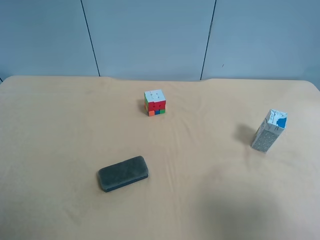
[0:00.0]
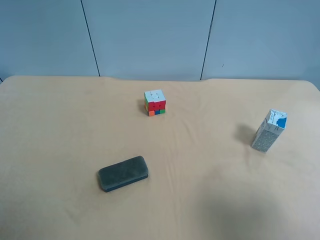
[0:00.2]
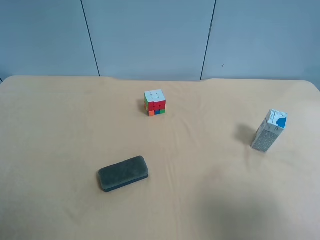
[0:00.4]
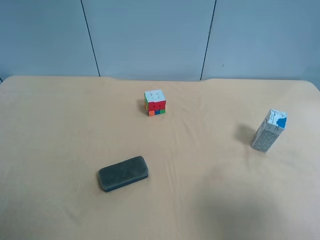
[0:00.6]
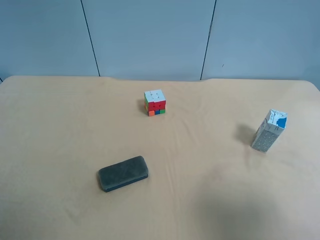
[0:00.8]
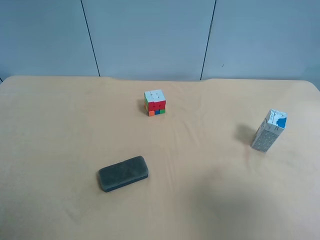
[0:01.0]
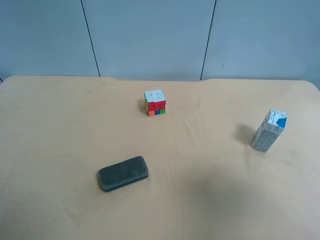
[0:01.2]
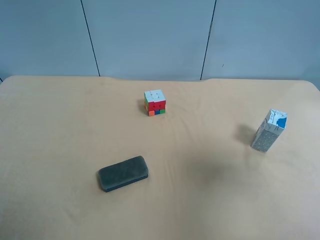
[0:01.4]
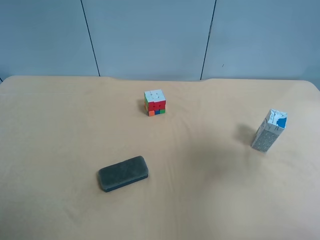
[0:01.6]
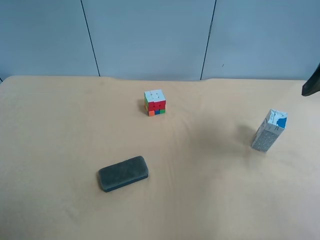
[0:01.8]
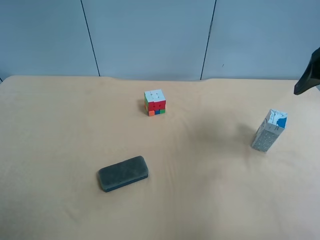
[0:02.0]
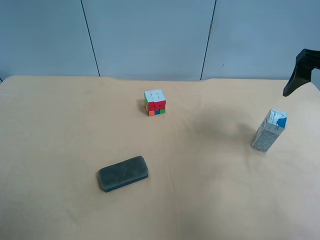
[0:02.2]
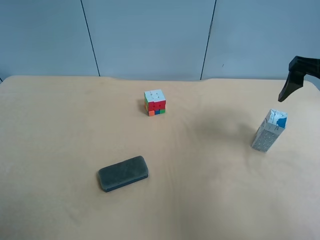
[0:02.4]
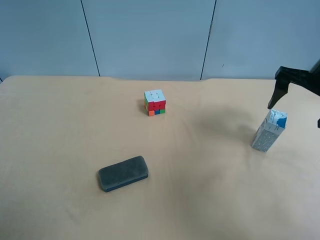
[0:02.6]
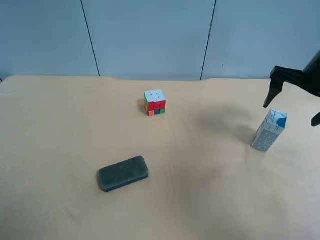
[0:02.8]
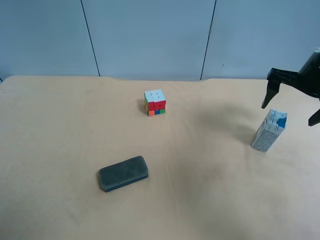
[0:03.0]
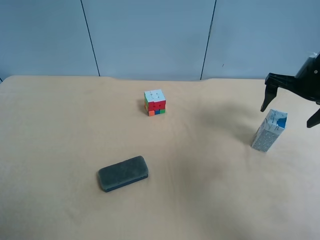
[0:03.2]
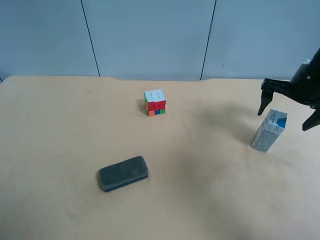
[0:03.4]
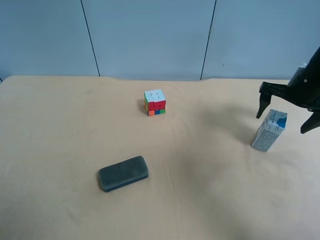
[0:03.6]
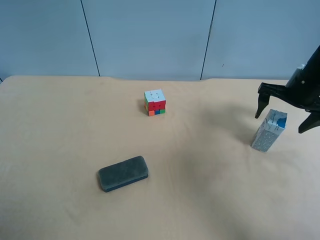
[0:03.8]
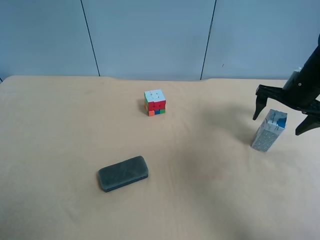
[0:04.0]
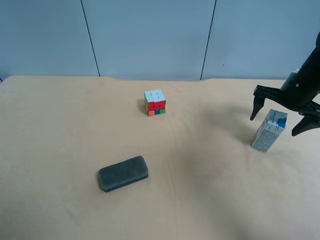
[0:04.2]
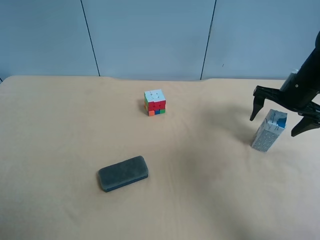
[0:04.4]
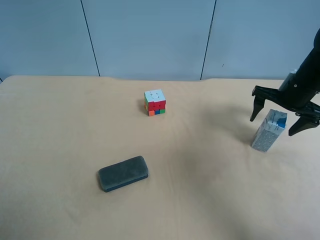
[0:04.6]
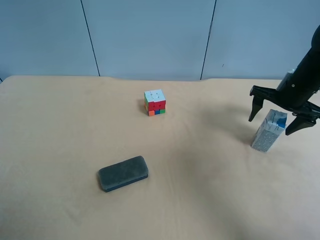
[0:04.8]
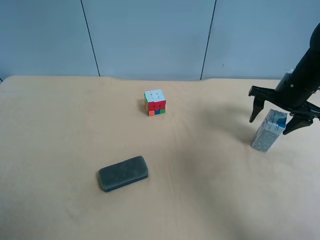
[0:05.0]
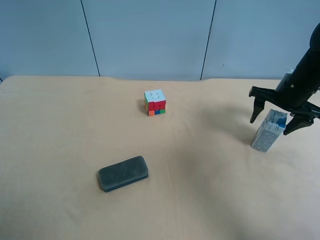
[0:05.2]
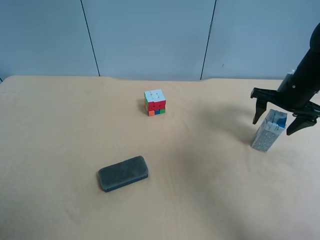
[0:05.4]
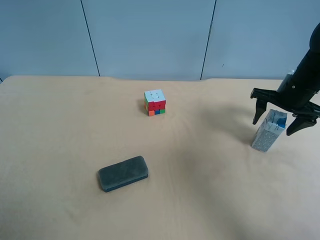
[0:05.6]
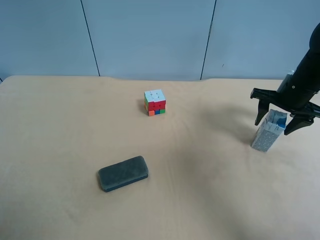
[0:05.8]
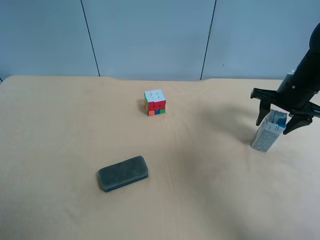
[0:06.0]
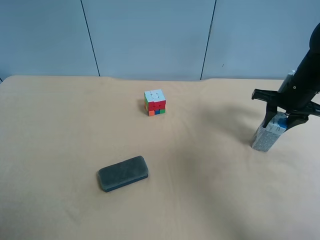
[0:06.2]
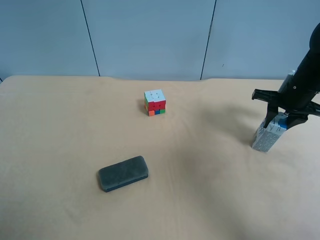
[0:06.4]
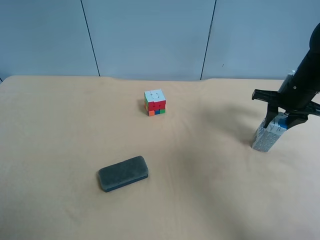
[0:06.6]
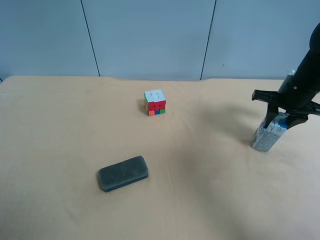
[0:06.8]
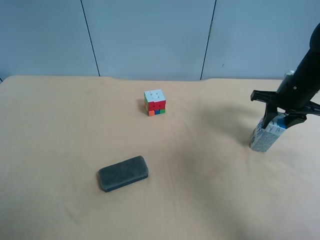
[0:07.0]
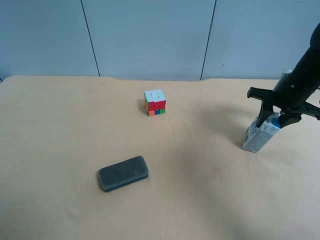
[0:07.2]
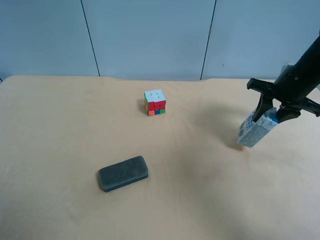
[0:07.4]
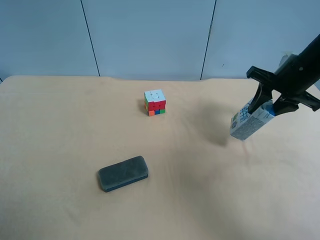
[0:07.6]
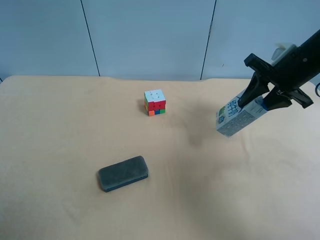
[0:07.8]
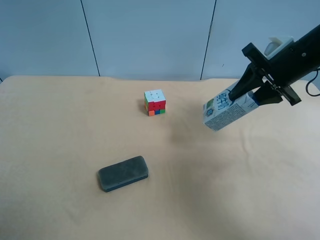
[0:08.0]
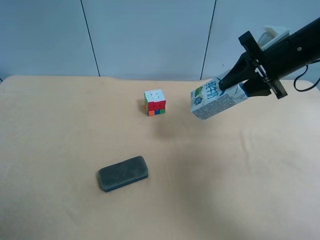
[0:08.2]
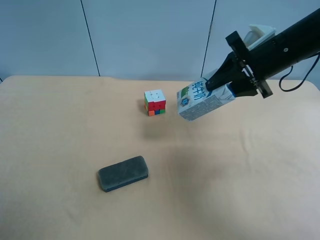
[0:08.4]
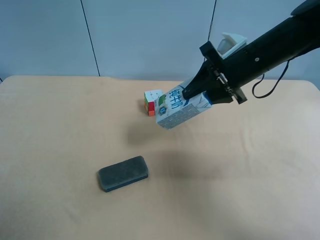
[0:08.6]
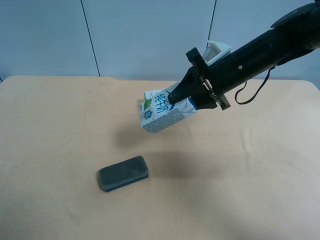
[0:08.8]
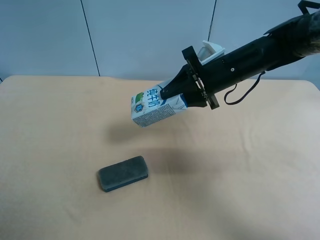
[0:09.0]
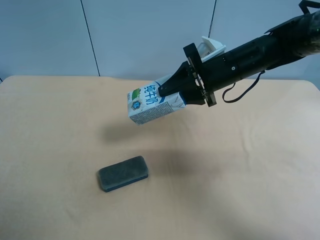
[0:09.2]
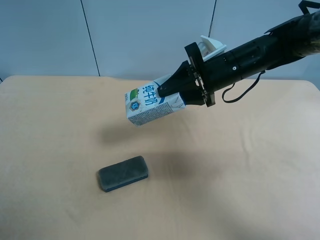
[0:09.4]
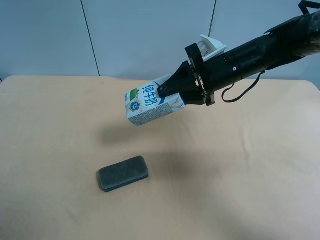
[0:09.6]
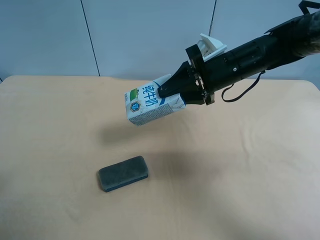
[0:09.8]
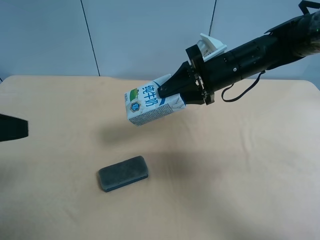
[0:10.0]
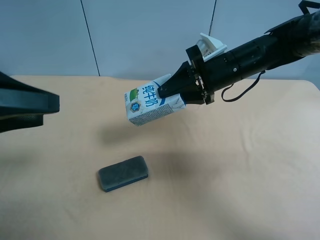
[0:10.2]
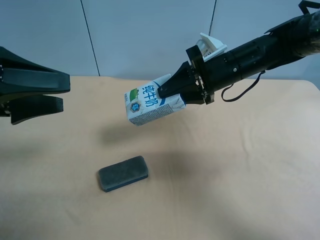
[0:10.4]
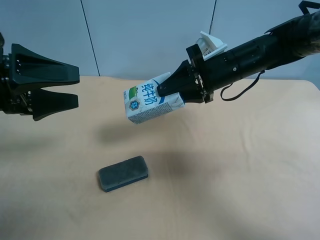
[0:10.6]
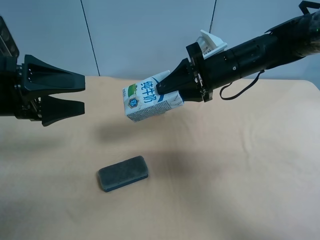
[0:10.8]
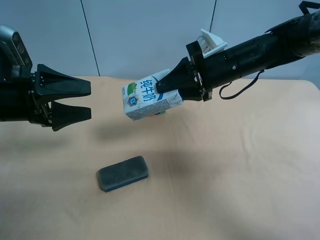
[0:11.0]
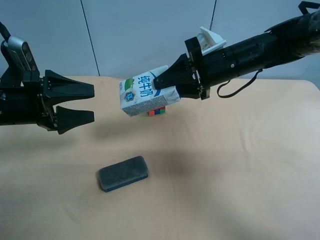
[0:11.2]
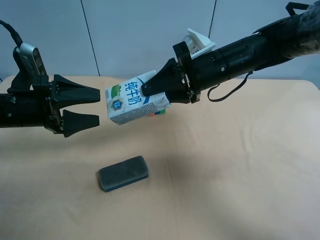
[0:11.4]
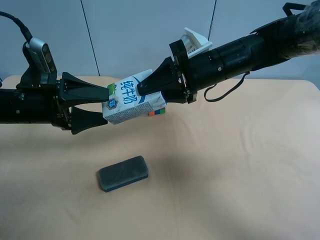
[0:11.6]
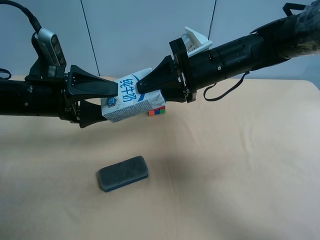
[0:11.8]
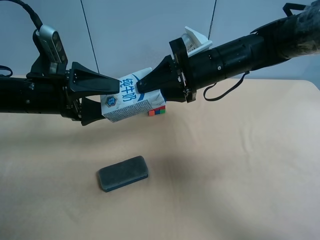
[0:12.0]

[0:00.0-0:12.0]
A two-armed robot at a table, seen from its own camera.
Task of the whole recording: use the right gripper to pick up the item and transfer it from the right gripper to the left gripper.
0:00.0 to 0:01.6: The right gripper travels forward and upward by approximately 15 cm.
0:01.6 to 0:03.0: The right gripper travels forward and downward by about 20 cm.
0:03.0 to 0:04.4: The right gripper moves downward, approximately 5 cm.
0:04.4 to 0:06.0: The right gripper closes up.
0:06.0 to 0:07.6: The right gripper goes roughly 5 cm upward, and closes.
0:07.6 to 0:09.0: The right gripper is displaced to the left by approximately 15 cm.
0:09.0 to 0:10.4: The left gripper goes some 20 cm forward.
0:10.4 to 0:12.0: The left gripper travels forward and downward by some 10 cm.

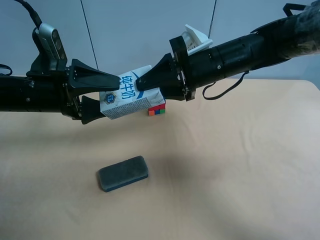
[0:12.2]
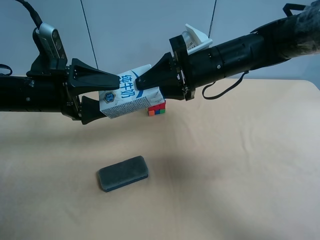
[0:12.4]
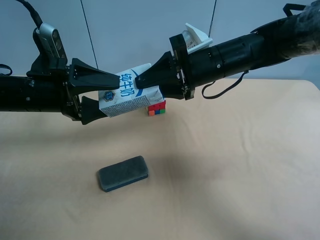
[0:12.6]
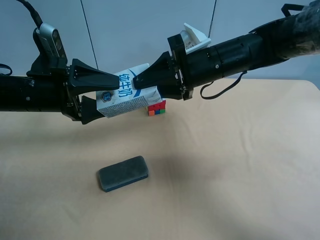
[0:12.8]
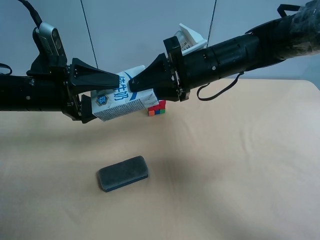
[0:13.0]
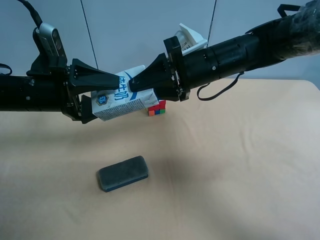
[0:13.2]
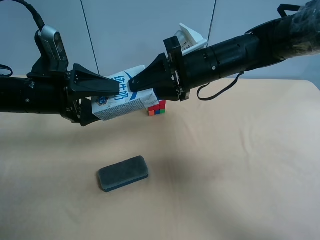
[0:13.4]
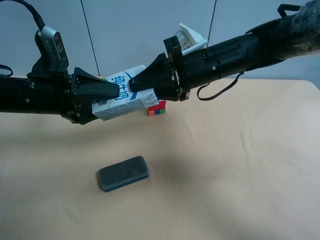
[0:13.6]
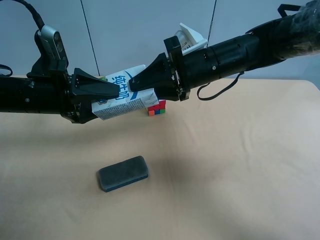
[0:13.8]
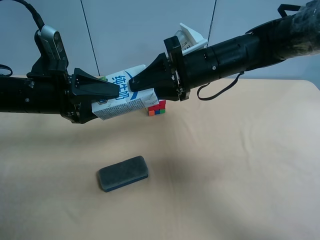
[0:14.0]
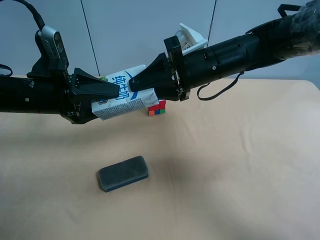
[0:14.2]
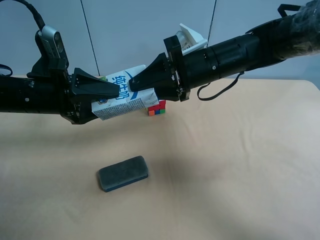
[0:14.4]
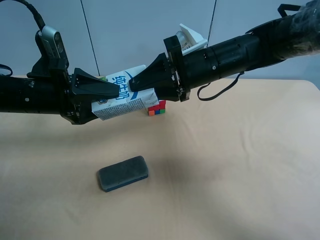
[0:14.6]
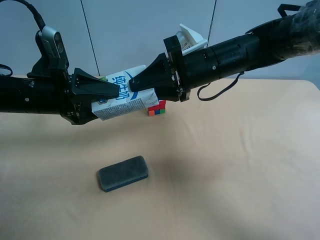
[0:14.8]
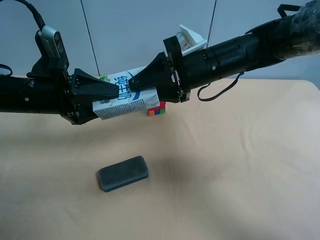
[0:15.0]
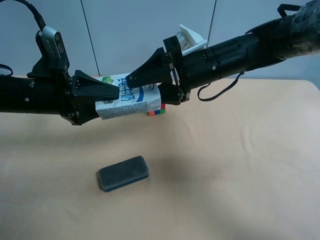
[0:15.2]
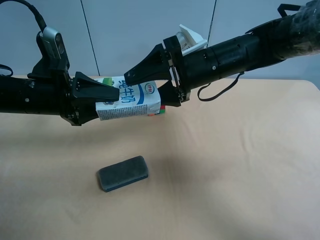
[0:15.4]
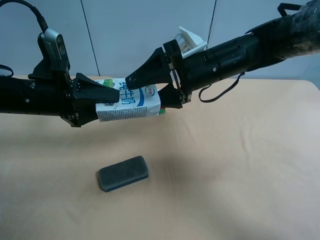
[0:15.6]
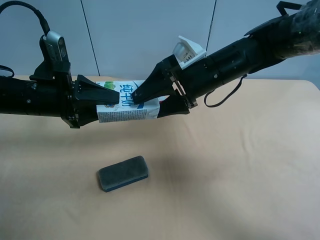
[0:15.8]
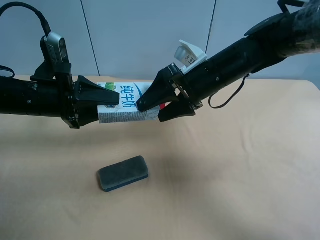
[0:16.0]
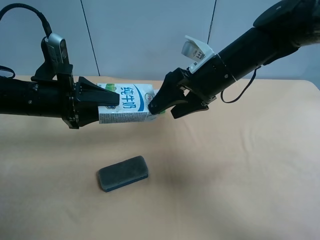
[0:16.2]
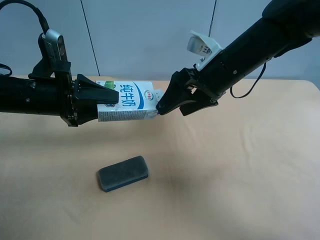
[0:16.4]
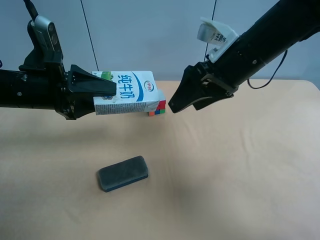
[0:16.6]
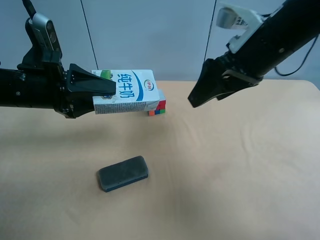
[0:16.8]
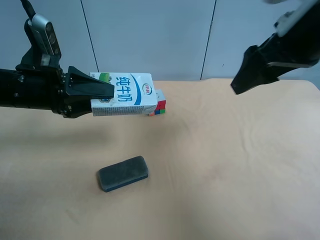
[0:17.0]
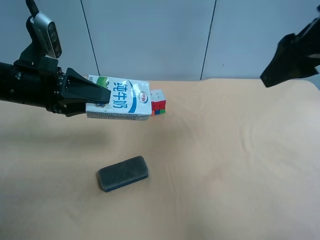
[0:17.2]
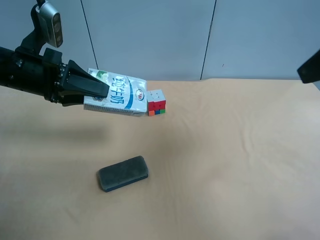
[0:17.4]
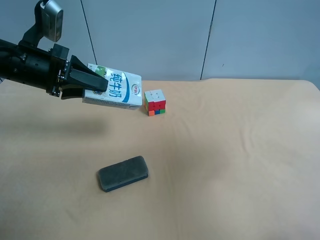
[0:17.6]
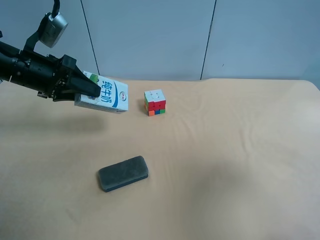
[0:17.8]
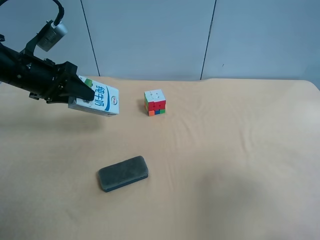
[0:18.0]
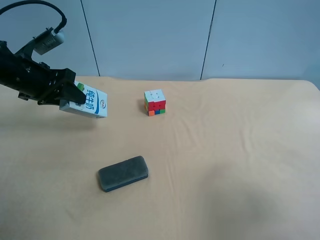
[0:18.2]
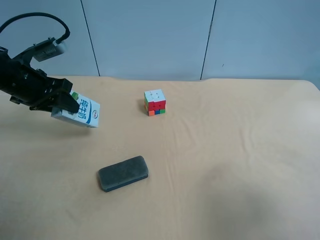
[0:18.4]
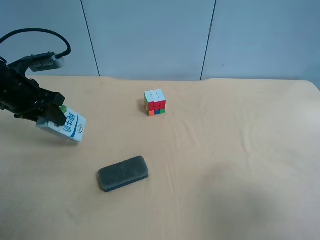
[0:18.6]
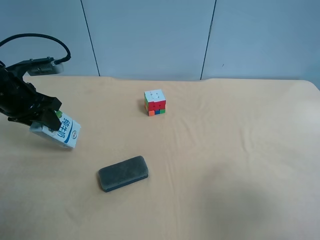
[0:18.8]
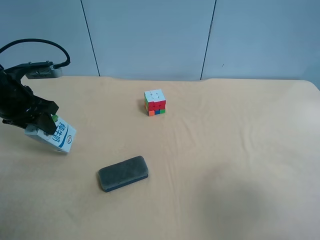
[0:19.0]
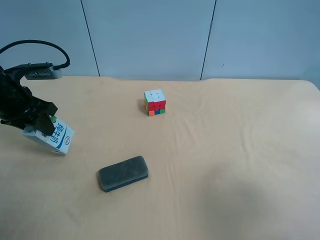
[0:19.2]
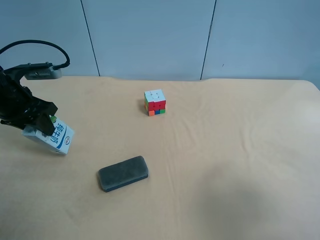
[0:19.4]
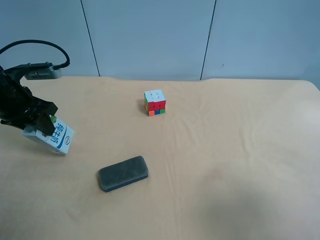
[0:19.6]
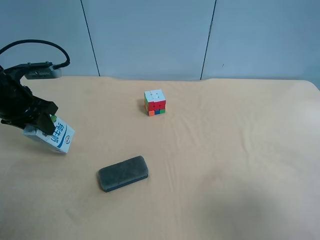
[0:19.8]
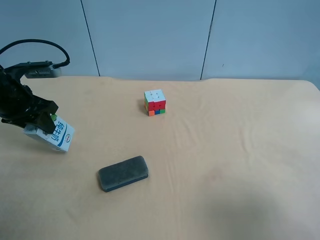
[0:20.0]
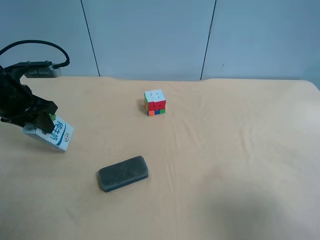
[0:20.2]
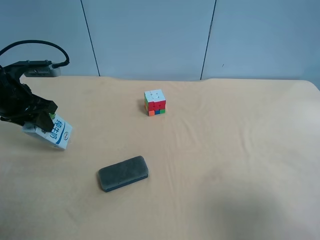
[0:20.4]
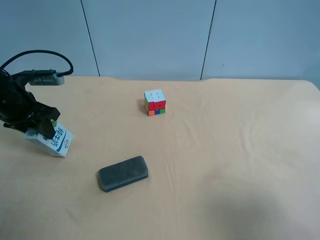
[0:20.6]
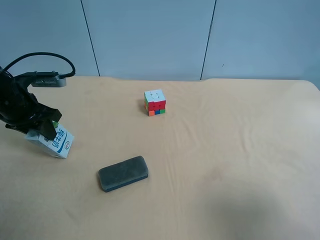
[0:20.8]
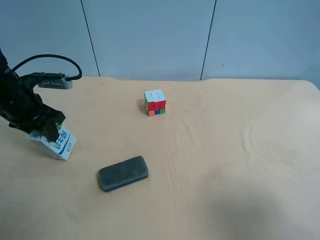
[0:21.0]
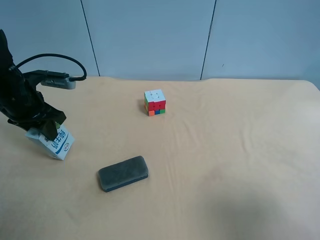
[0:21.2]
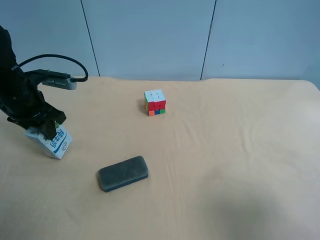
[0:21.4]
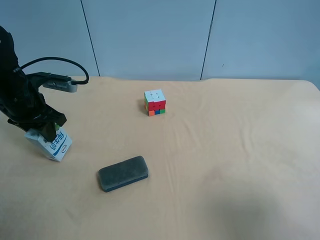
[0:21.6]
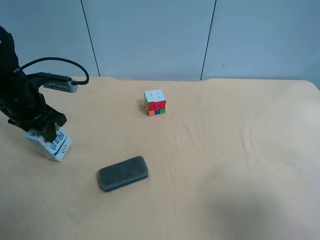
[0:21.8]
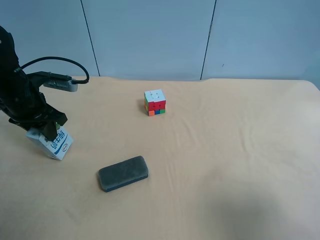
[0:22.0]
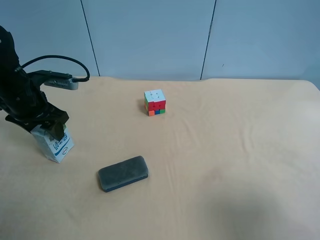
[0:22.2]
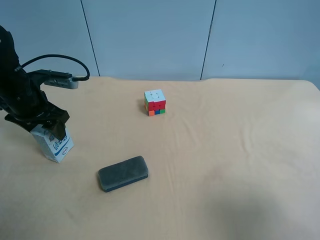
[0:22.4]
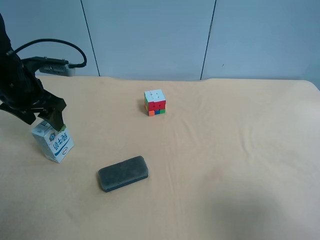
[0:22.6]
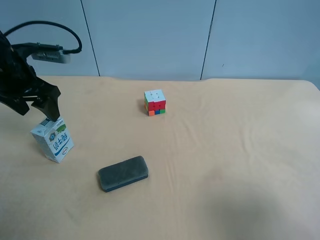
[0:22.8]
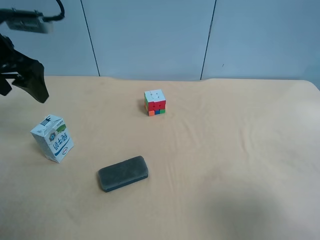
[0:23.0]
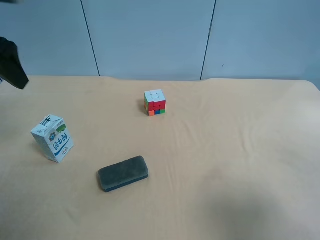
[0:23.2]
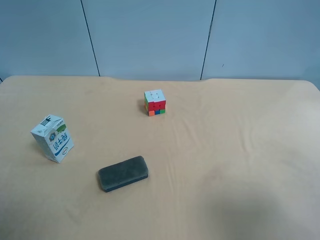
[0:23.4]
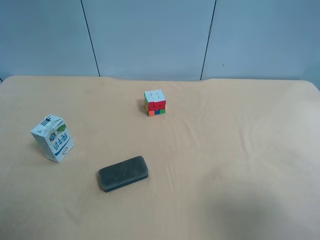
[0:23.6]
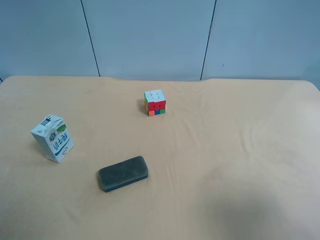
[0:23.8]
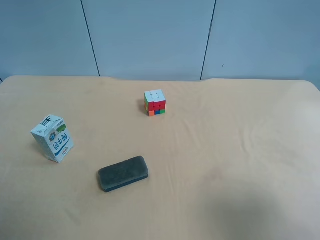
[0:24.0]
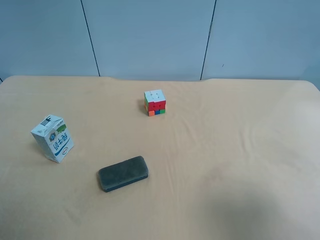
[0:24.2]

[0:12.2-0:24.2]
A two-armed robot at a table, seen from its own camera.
Task of the whole recording: use the right gripper to pick up the item and transfer it from the right gripper to the left gripper.
0:12.2 to 0:13.8: The left gripper closes its fingers.
0:13.8 to 0:15.2: The right gripper opens.
0:15.2 to 0:16.6: The right gripper shifts by some 10 cm.
0:16.6 to 0:18.2: The left gripper moves forward and to the left, about 10 cm, while the right gripper moves backward and to the right, about 30 cm.
0:19.8 to 0:21.2: The grippers make only small movements.
0:21.2 to 0:22.6: The left gripper opens up.
0:22.6 to 0:24.2: The left gripper travels backward and upward by approximately 35 cm.
